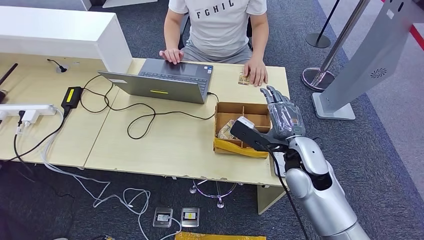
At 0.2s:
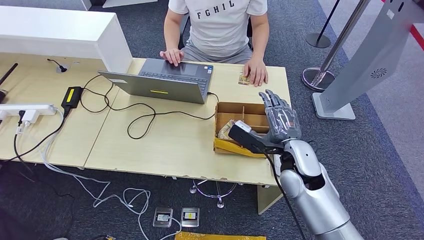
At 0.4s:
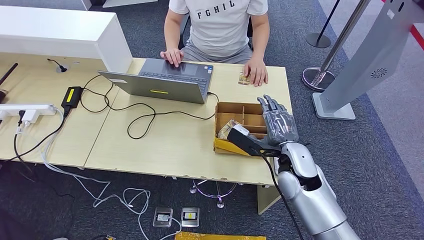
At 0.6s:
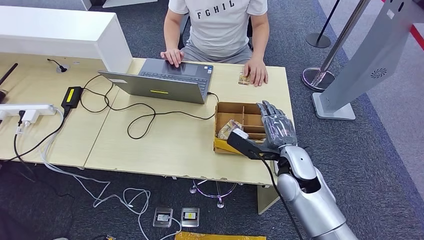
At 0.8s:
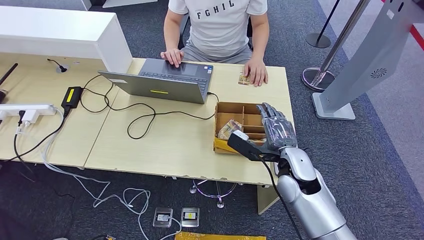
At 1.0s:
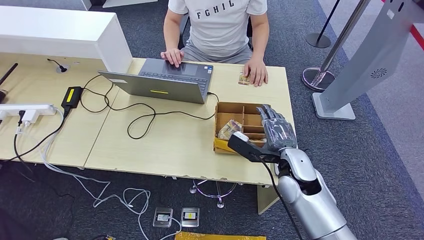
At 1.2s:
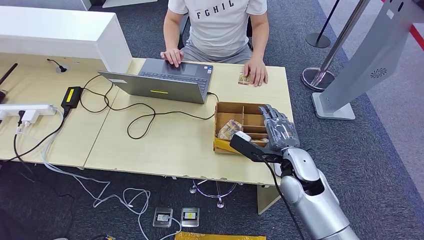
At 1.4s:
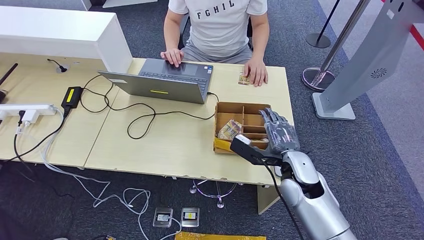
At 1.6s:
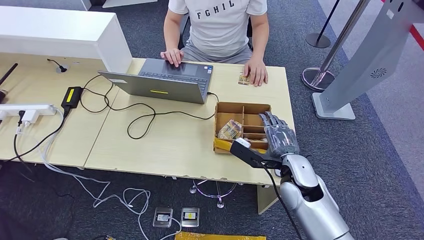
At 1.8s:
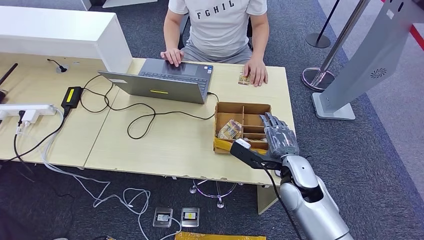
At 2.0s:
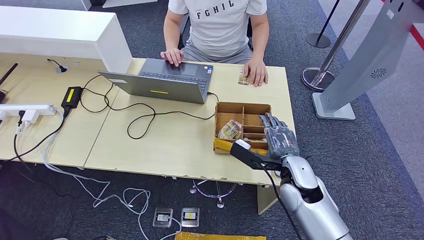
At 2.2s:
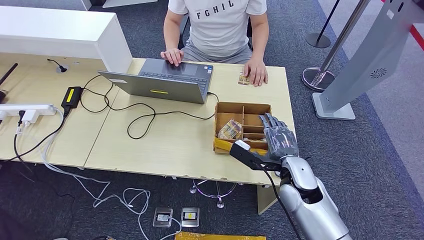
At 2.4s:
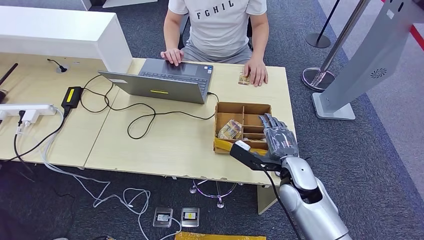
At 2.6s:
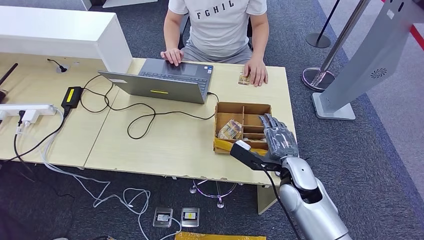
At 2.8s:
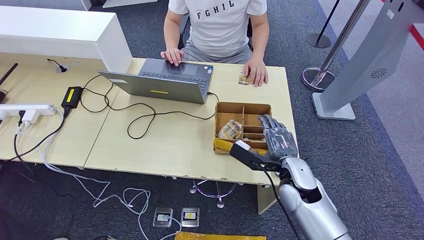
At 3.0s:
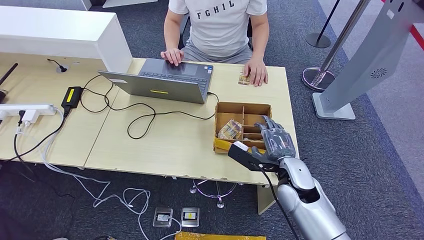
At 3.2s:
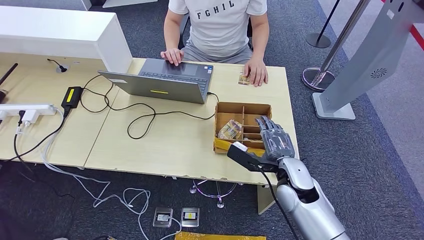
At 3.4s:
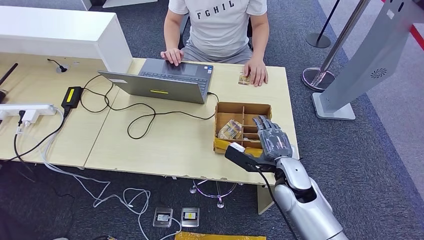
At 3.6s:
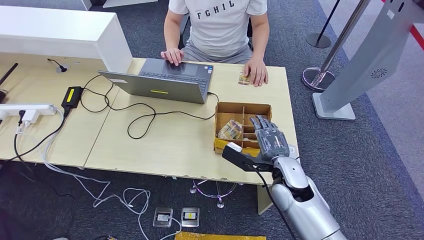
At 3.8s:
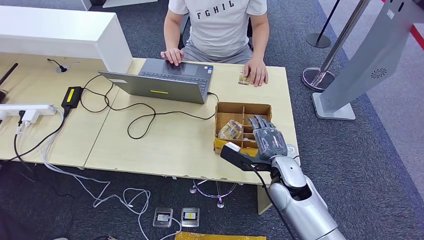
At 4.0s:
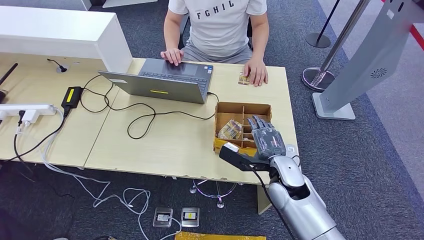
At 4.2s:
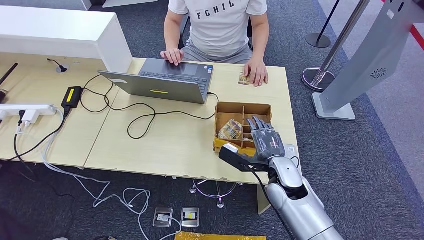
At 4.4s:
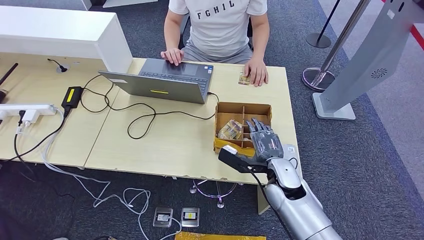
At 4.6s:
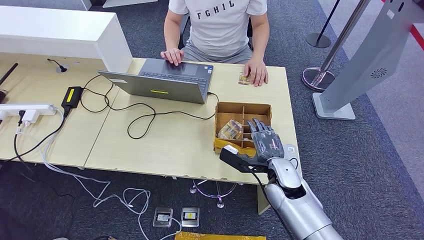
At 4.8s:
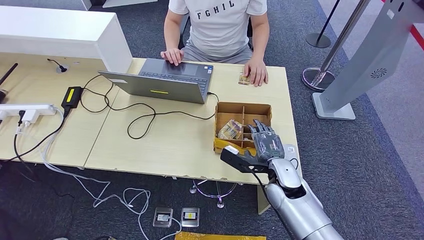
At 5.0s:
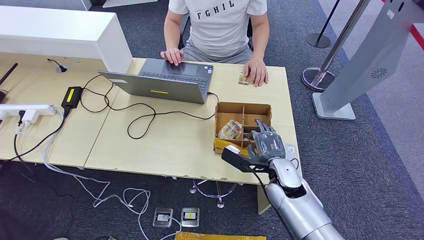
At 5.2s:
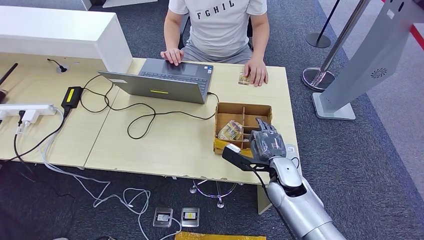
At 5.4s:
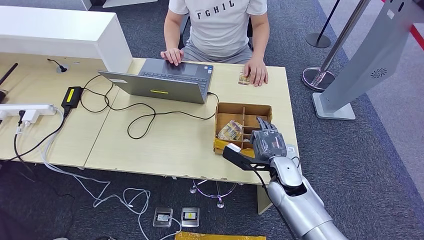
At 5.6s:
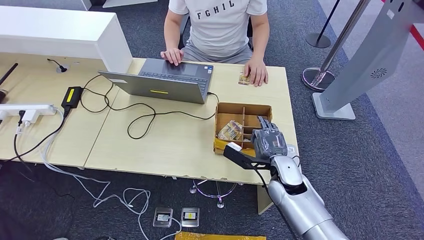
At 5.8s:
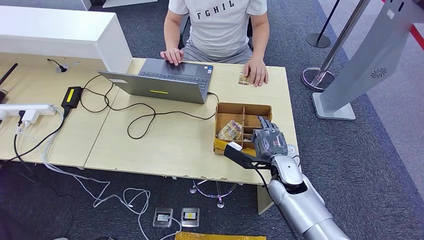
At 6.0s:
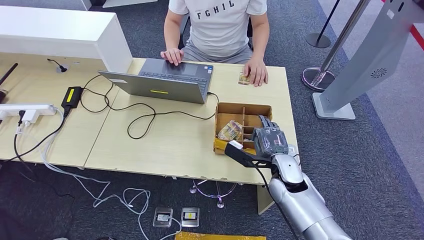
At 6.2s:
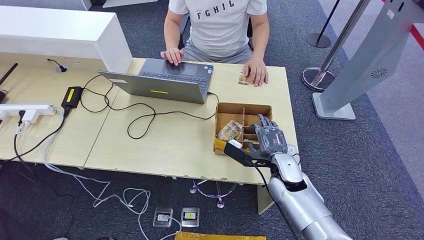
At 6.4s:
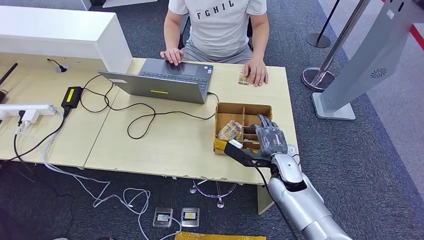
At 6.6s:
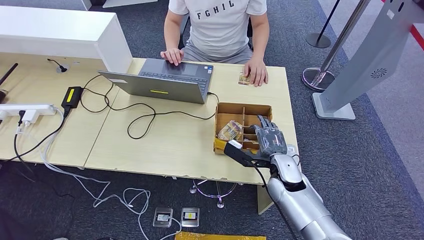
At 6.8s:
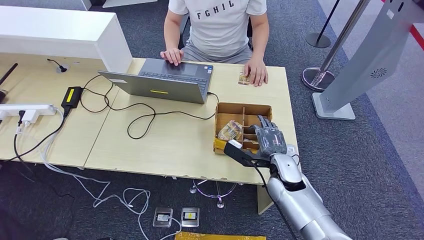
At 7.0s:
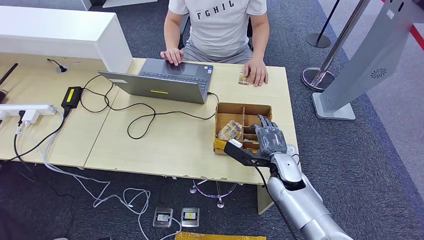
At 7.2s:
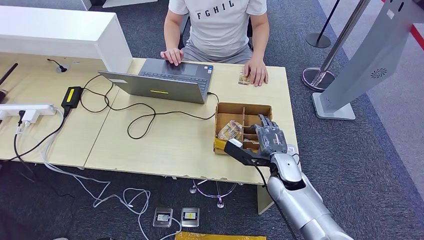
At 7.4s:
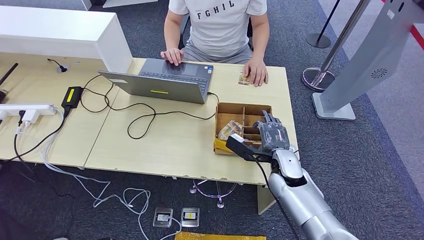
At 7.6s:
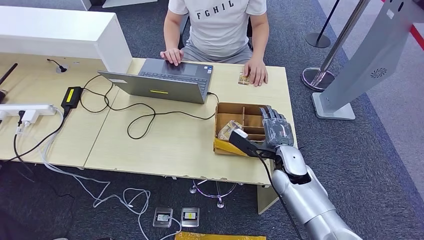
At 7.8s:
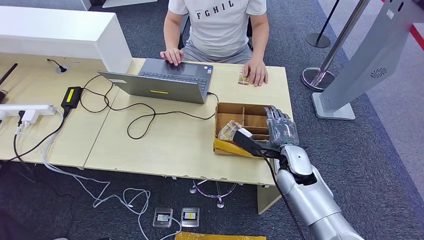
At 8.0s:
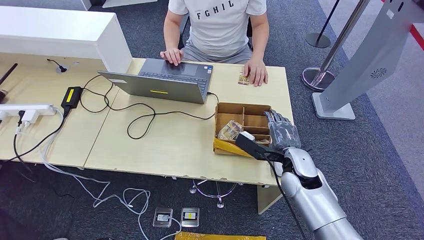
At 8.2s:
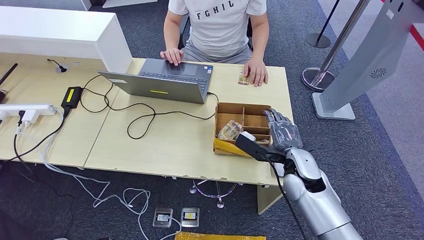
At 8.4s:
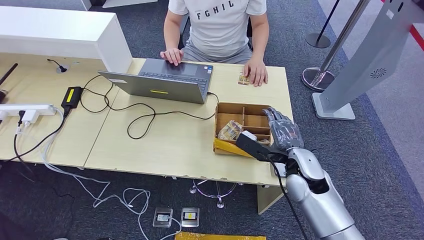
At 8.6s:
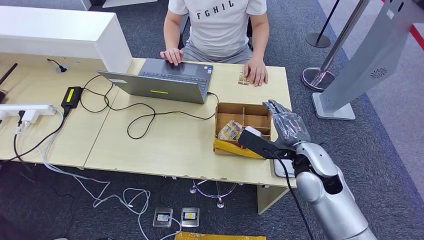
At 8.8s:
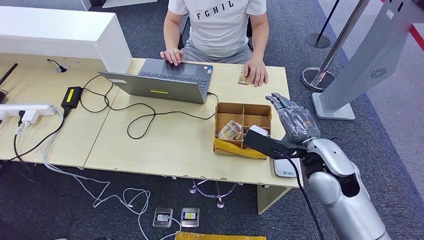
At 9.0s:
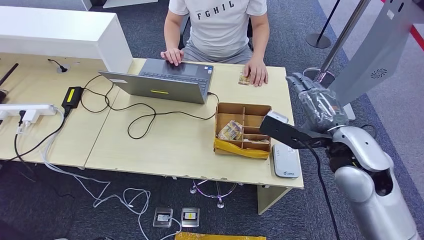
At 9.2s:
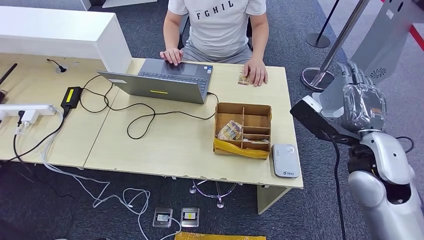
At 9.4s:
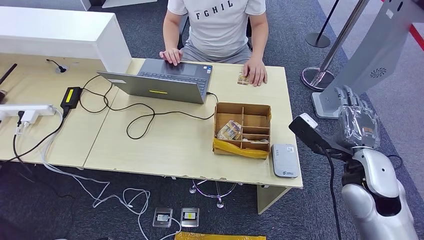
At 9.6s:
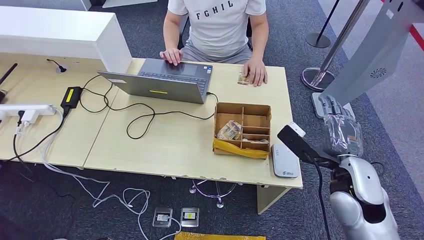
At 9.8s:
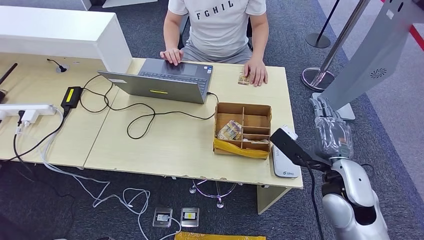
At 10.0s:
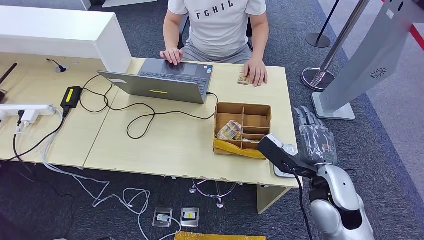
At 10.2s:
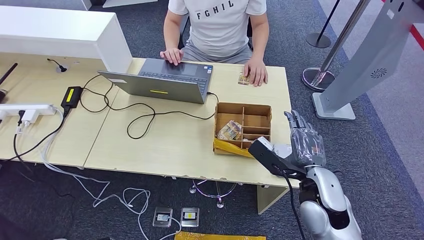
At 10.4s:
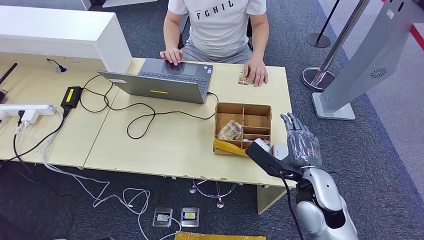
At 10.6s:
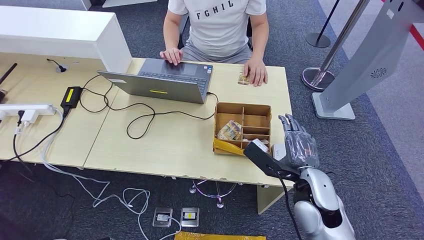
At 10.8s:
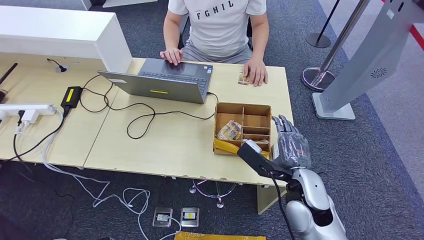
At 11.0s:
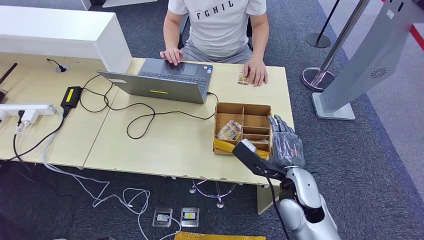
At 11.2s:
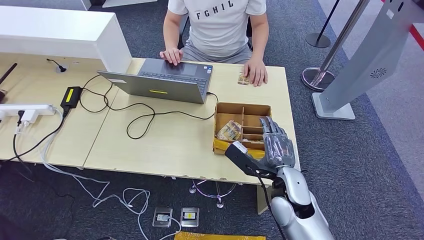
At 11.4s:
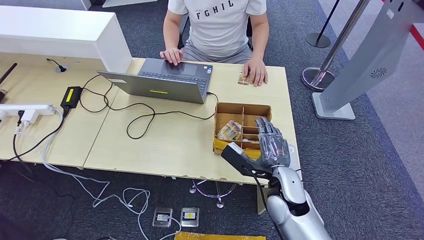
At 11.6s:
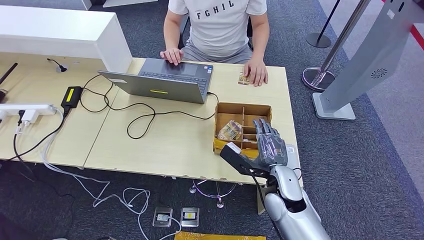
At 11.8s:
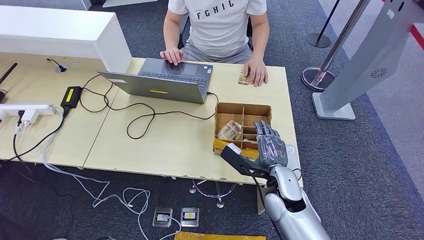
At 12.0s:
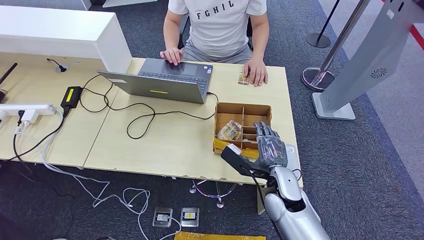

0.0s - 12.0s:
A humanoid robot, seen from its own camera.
0.0s - 1.6s: The right hand is displaced downward by approximately 5 cm.
1.6s - 3.0s: Neither hand changes place.
3.0s - 7.6s: The hands make only small movements.
7.6s - 9.0s: The right hand moves upward, roughly 15 cm.
9.0s - 10.4s: The right hand is displaced downward by roughly 10 cm.
10.4s - 12.0s: The right hand travels downward and to the left by some 10 cm.

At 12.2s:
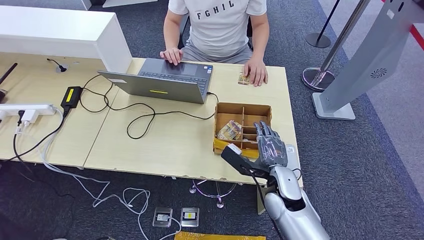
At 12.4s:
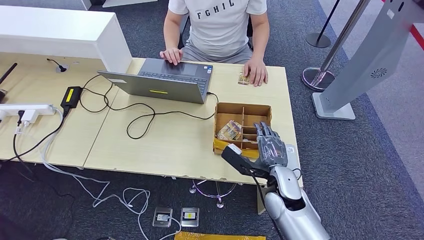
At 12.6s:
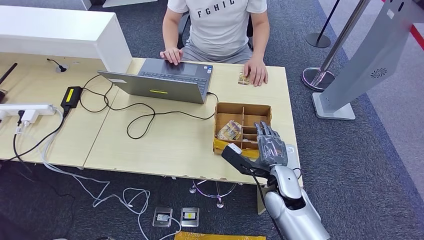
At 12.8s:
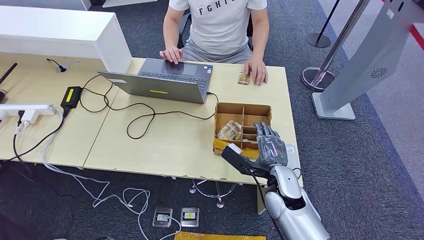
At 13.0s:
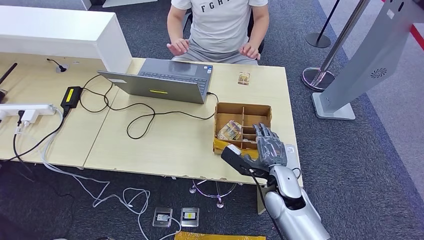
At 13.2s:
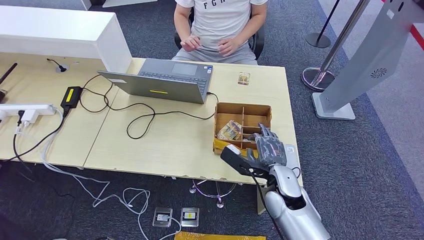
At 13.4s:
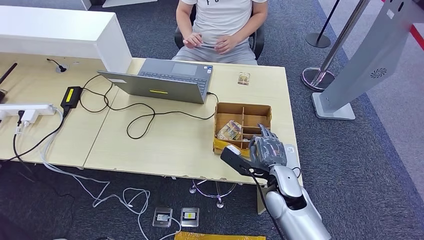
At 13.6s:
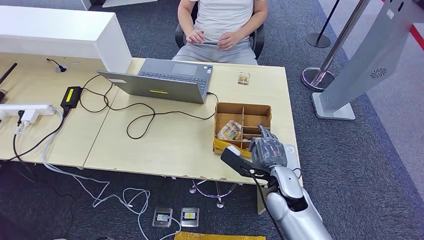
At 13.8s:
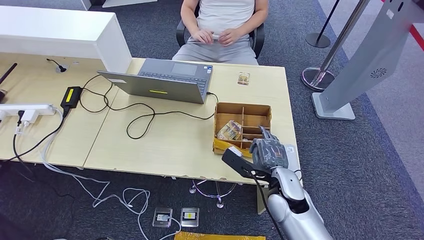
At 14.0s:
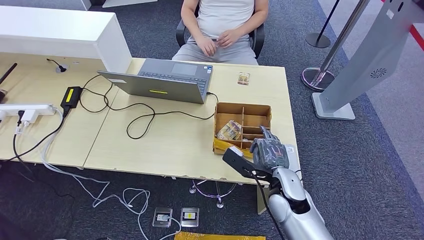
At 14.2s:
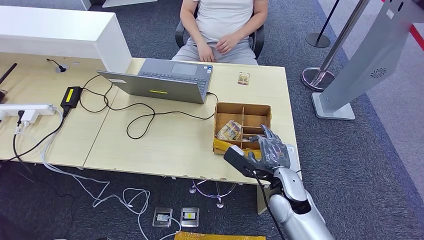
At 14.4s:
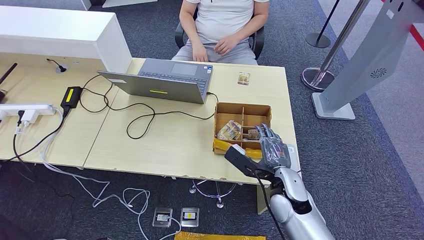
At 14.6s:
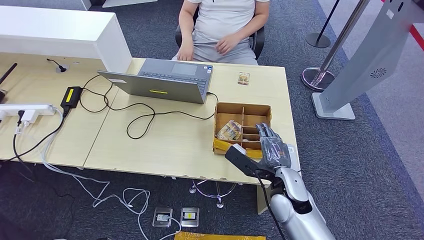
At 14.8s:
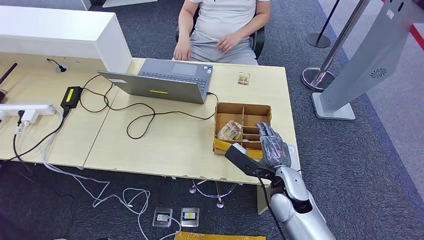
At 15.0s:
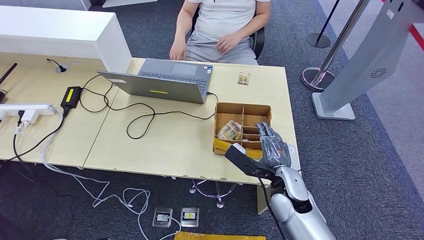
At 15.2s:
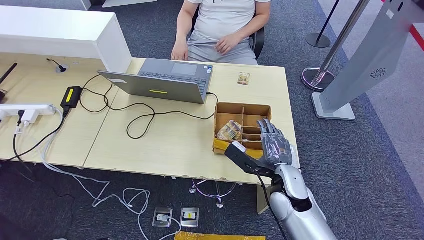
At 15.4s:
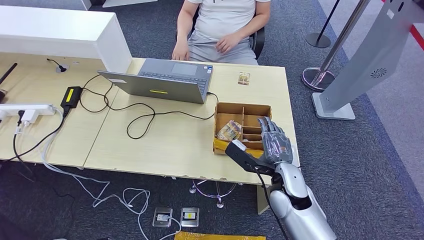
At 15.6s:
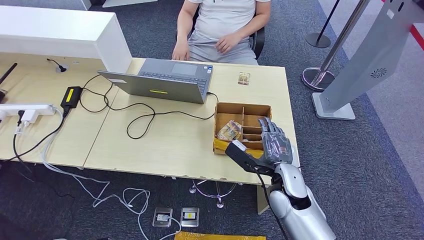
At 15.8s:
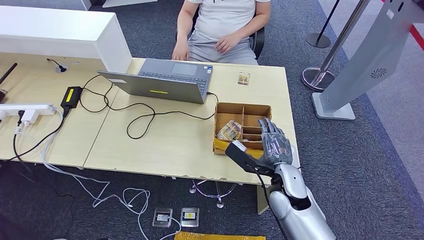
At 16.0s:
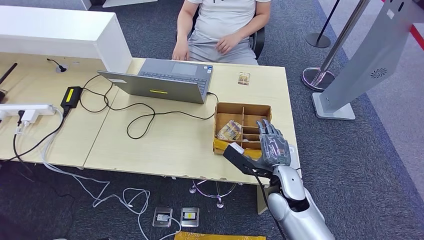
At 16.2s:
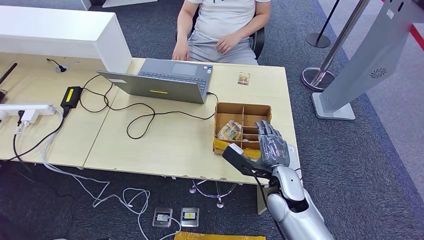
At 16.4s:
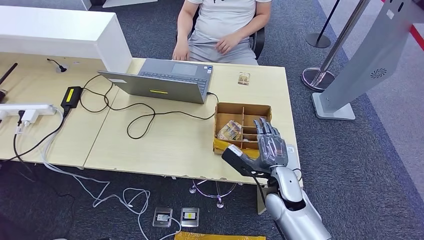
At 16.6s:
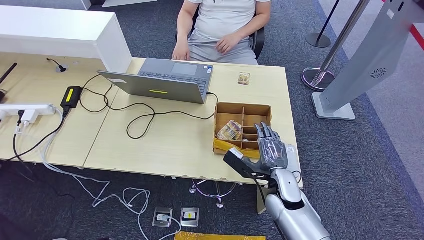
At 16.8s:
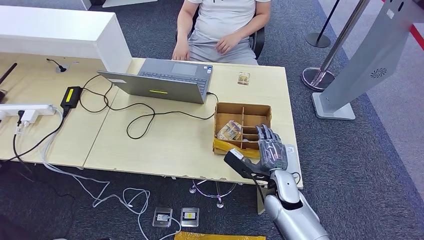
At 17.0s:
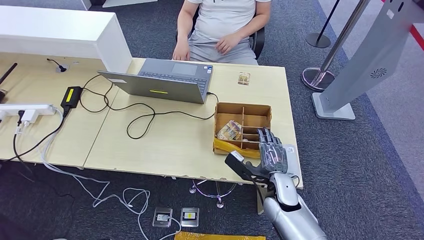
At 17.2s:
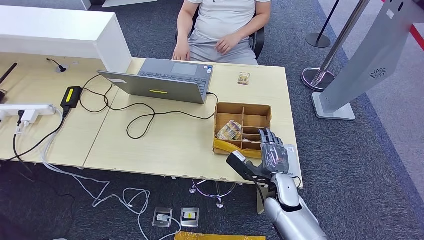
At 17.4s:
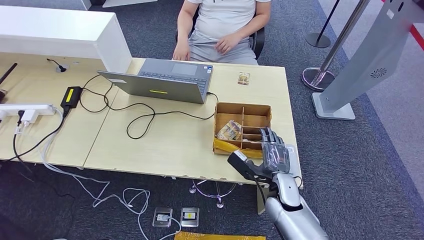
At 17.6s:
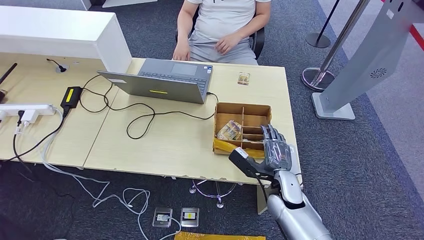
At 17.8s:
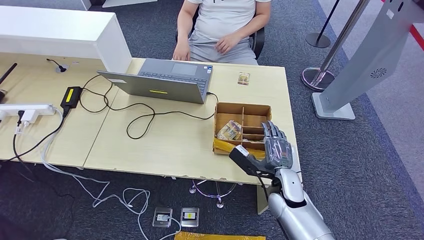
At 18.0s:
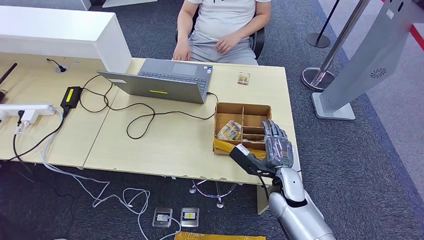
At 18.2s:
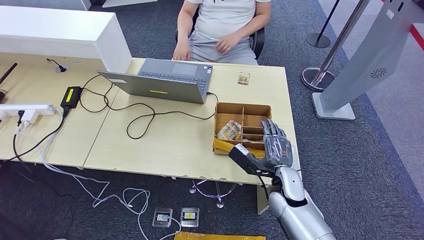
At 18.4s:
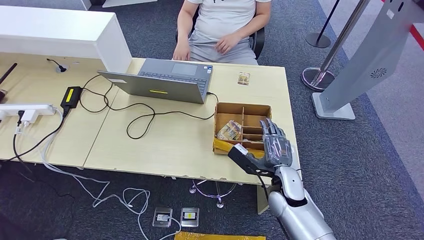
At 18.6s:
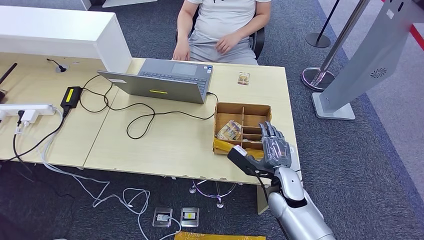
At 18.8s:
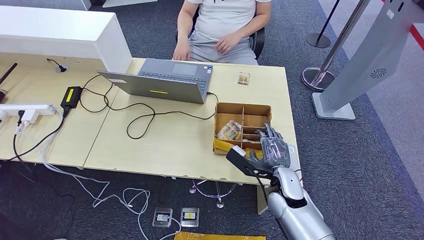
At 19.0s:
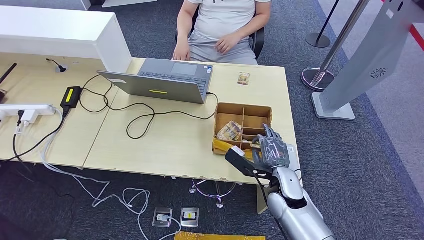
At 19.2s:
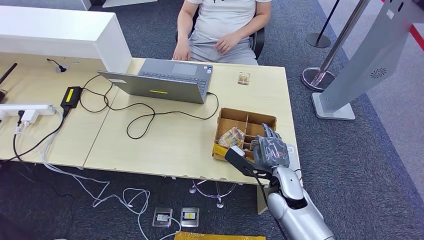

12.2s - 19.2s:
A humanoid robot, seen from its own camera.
12.2s - 13.6s: Both hands stay about where they are.
13.6s - 19.2s: The hands make only small movements.
